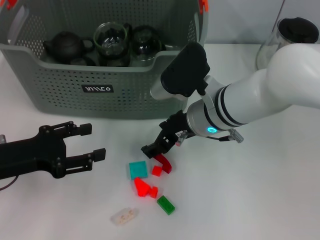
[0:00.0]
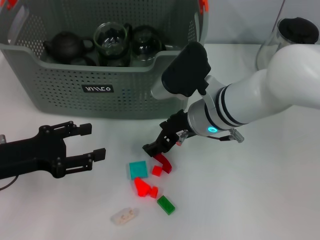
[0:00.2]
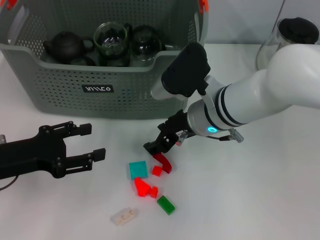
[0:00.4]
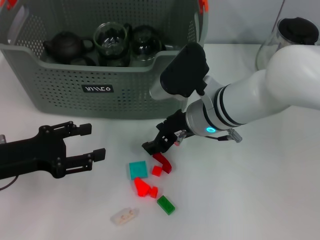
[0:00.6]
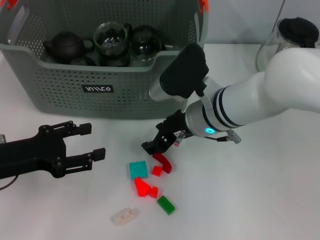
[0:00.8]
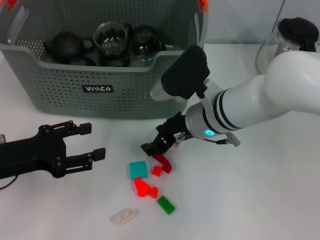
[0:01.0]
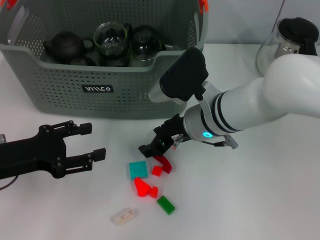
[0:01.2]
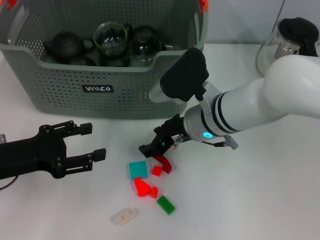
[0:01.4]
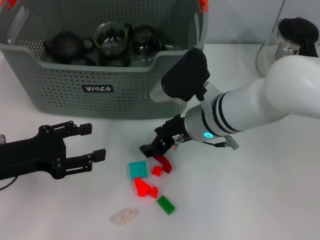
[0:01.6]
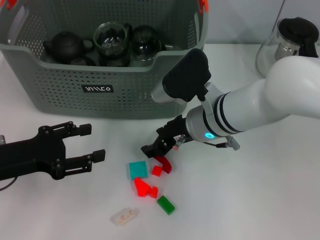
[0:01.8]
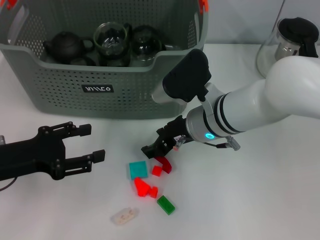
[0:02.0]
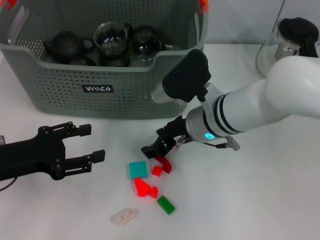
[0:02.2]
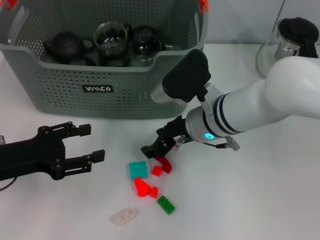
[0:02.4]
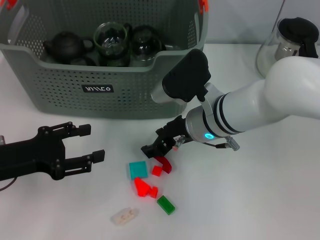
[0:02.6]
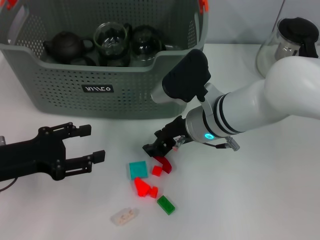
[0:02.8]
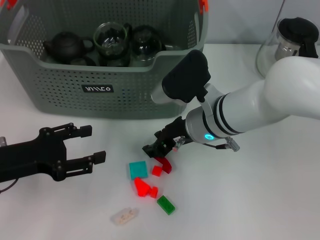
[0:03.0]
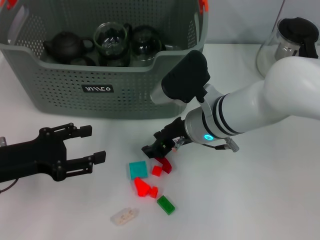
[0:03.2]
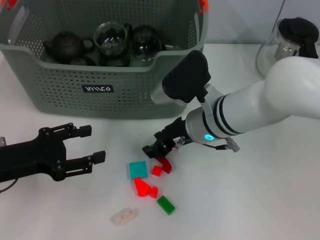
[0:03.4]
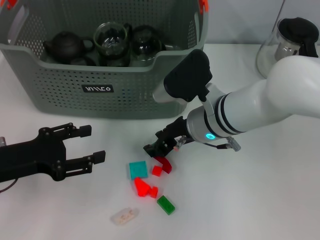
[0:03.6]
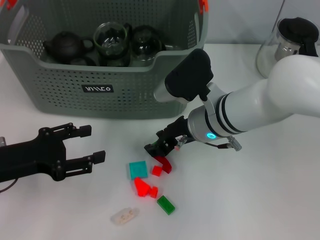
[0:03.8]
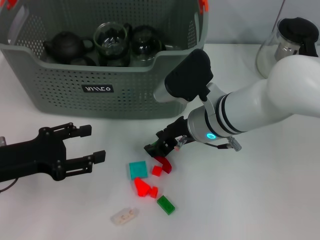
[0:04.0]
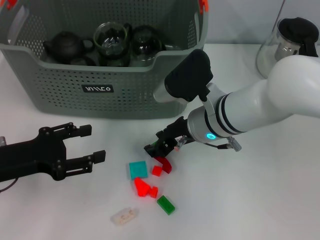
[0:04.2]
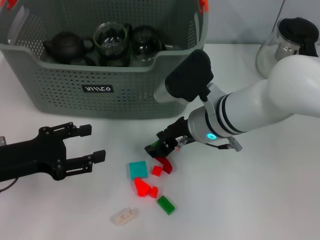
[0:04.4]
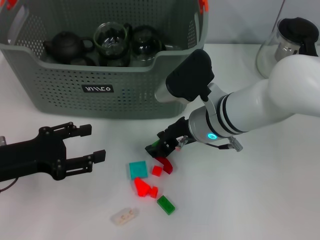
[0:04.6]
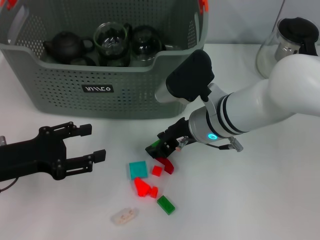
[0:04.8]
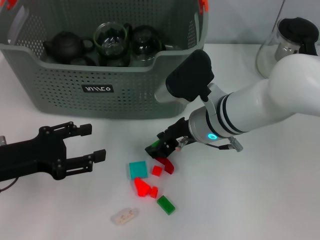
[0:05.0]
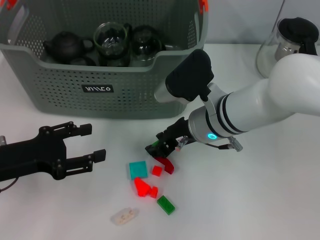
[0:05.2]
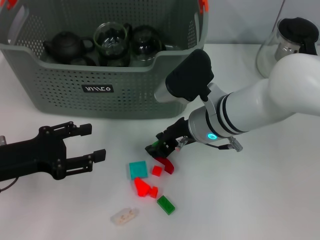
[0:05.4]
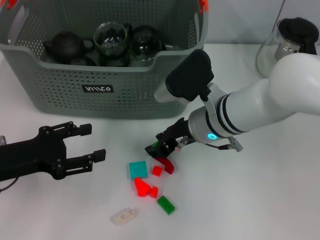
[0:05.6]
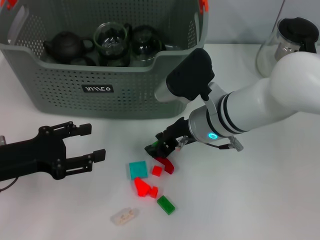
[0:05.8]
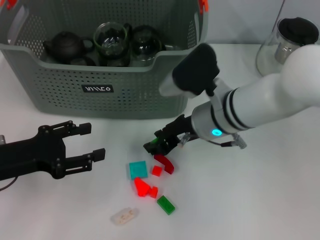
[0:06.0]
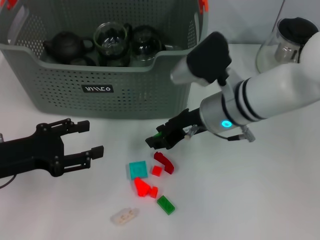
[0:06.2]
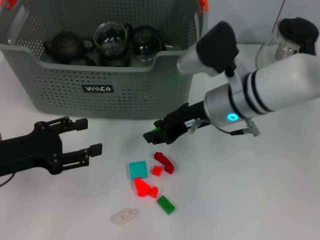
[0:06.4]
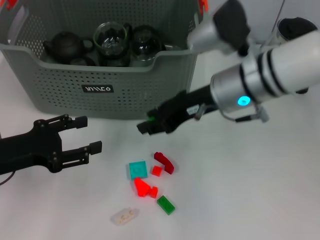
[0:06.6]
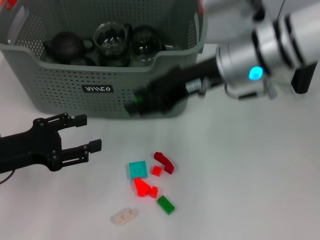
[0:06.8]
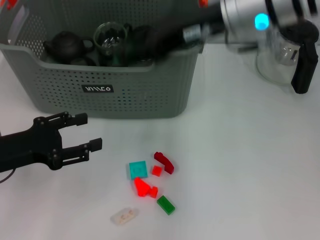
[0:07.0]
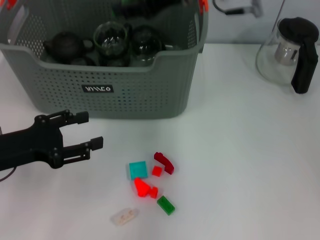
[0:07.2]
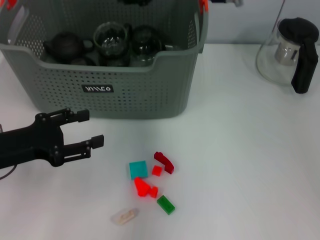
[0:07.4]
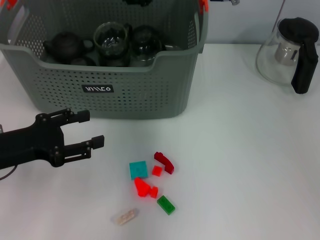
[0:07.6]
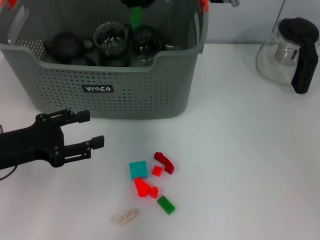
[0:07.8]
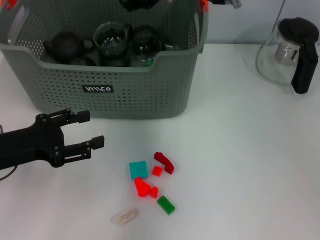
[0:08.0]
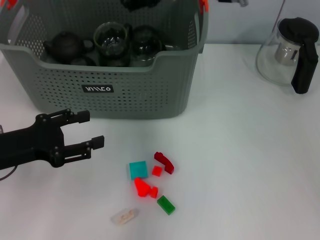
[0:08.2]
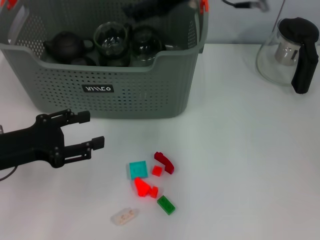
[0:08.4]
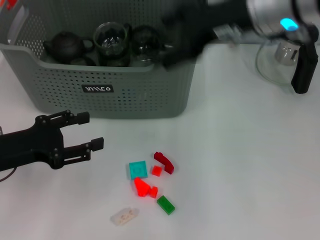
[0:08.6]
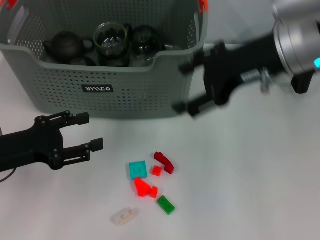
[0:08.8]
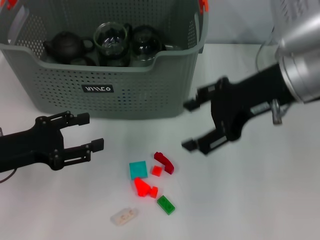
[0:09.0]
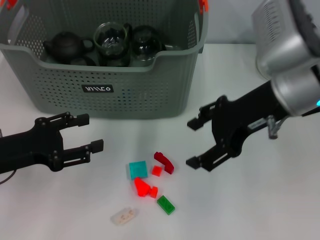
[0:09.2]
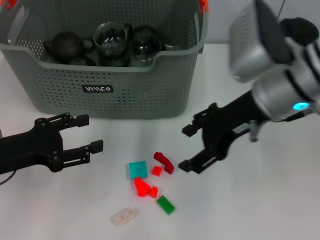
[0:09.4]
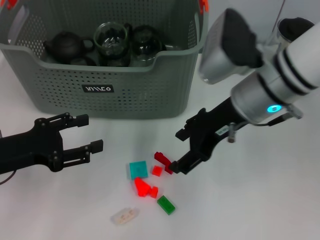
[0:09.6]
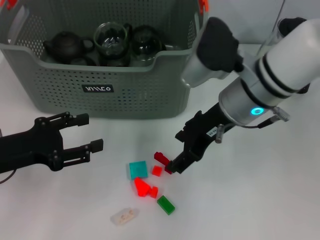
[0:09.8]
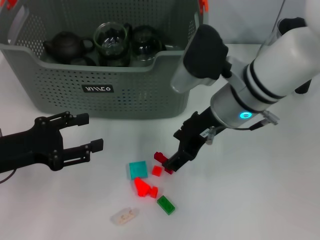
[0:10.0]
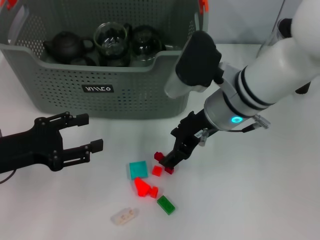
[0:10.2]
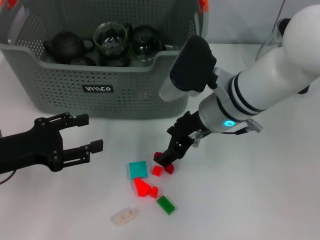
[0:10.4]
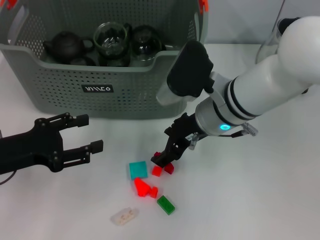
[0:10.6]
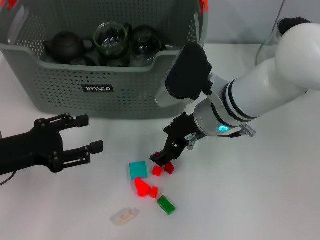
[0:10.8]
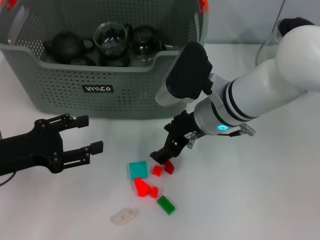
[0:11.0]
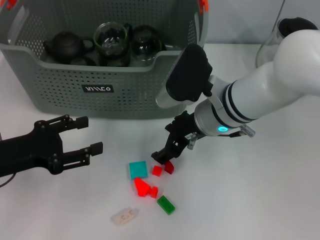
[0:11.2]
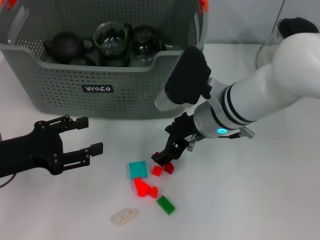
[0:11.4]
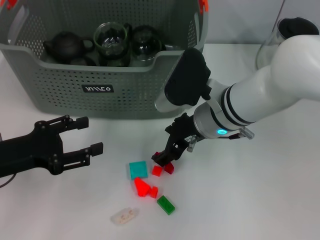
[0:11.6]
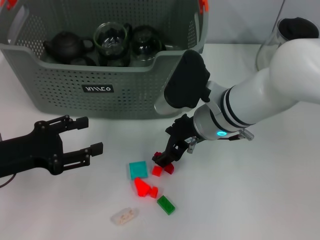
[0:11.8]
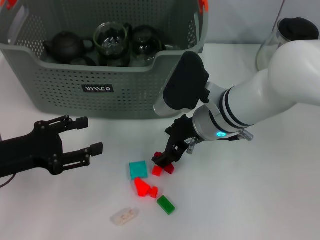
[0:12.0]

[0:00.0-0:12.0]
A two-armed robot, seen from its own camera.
Task of the whole recording: pick up the teacup on the table and place it into the storage bin, pick up the block on the table and place it into the storage bin.
Step, 0:00.0 to 0:05.6: Grasp the green block with right gripper.
Step, 0:05.8 to 0:08.0: Place the green block in the storage box with right gripper.
0:00.0 to 0:03.0: Both grippers stay put.
0:03.0 to 0:04.4: The two grippers keep their place.
0:04.4 to 0:06.0: The two grippers keep their place.
0:06.0 to 0:07.6: The right gripper goes approximately 20 cm upward and forward.
0:07.6 to 0:09.0: The right gripper travels backward and to the right by some 15 cm, and opens up.
0:09.0 to 0:10.4: The right gripper travels downward and to the left by roughly 15 cm.
0:10.4 to 0:12.0: There are only small adjustments of the grippers.

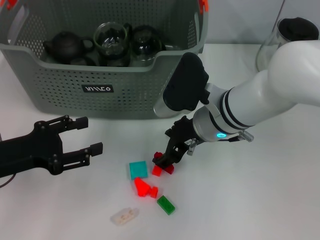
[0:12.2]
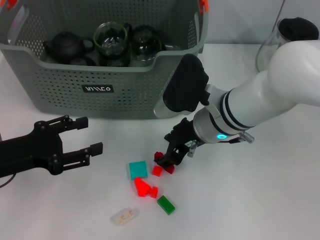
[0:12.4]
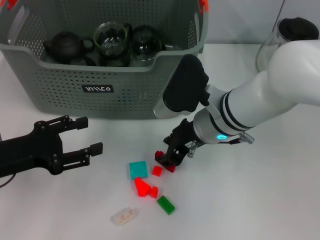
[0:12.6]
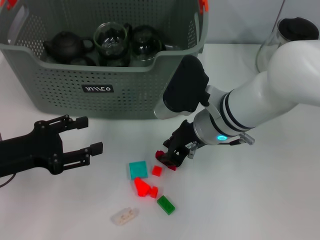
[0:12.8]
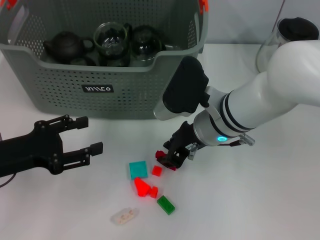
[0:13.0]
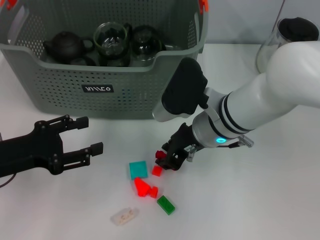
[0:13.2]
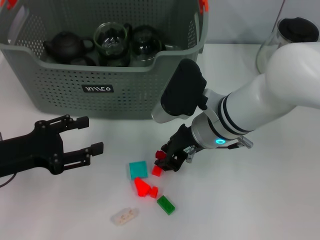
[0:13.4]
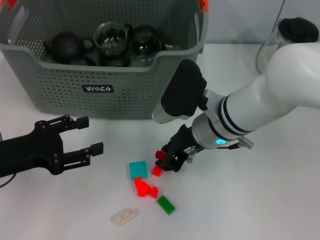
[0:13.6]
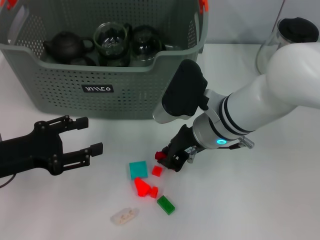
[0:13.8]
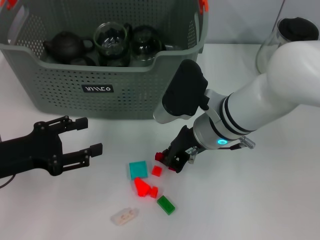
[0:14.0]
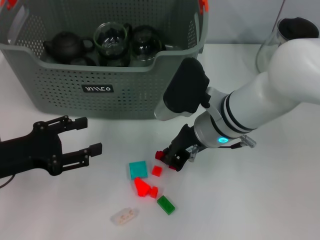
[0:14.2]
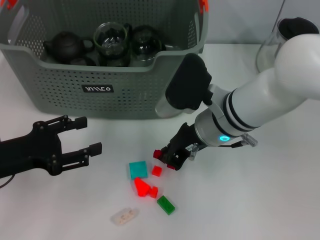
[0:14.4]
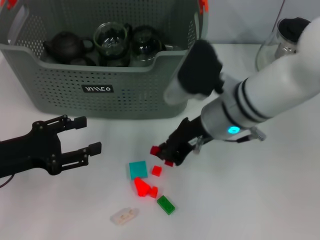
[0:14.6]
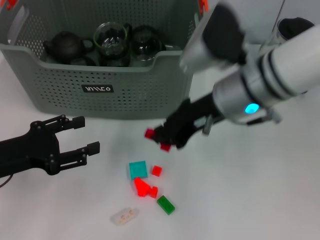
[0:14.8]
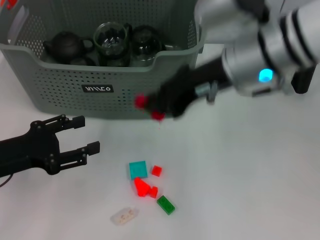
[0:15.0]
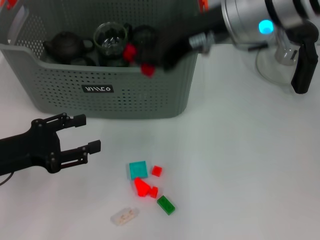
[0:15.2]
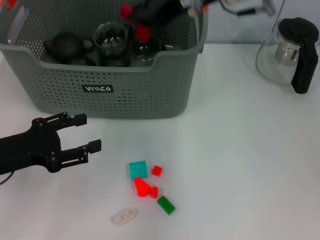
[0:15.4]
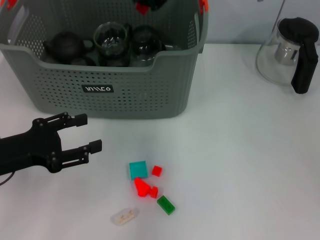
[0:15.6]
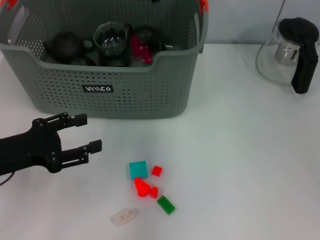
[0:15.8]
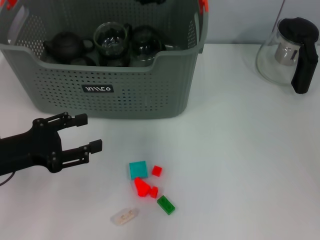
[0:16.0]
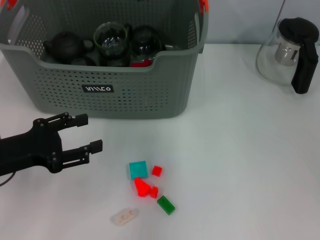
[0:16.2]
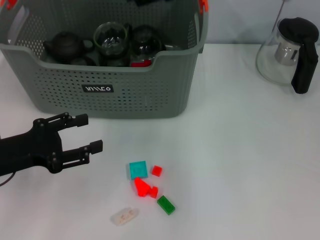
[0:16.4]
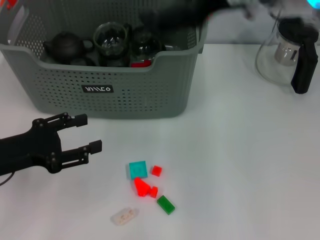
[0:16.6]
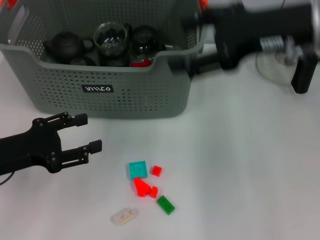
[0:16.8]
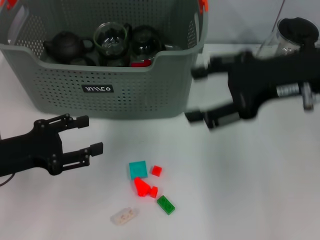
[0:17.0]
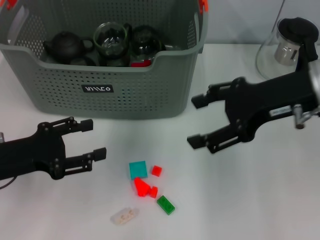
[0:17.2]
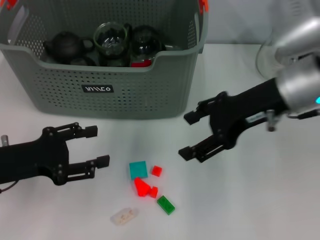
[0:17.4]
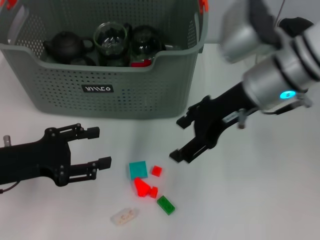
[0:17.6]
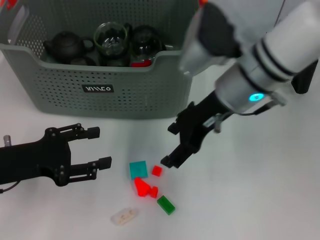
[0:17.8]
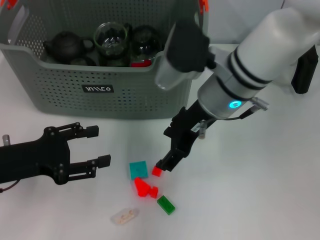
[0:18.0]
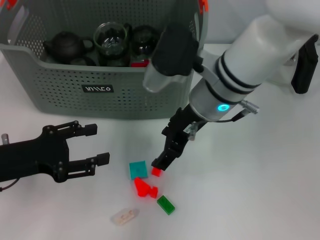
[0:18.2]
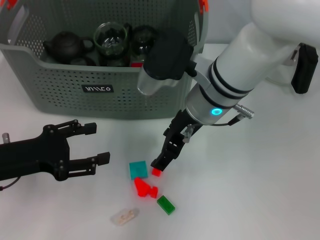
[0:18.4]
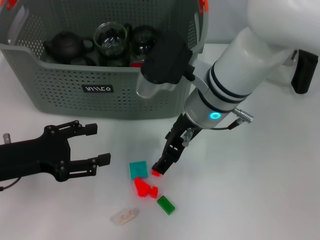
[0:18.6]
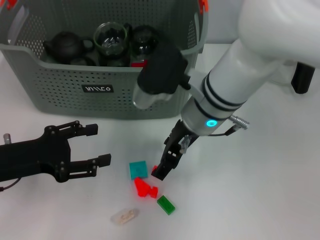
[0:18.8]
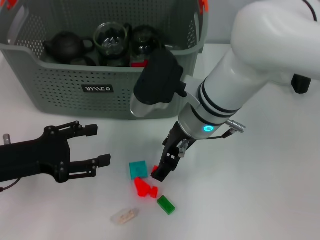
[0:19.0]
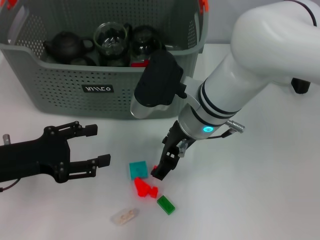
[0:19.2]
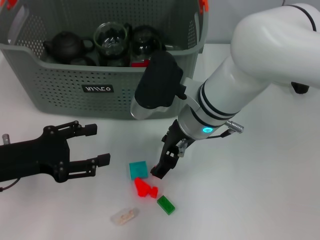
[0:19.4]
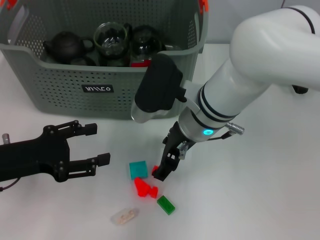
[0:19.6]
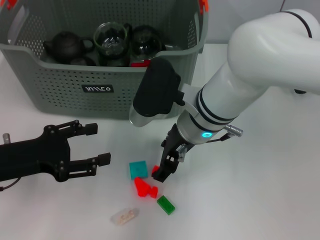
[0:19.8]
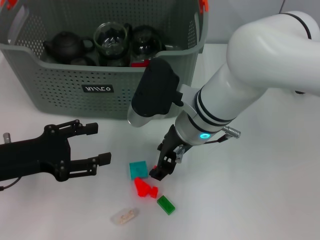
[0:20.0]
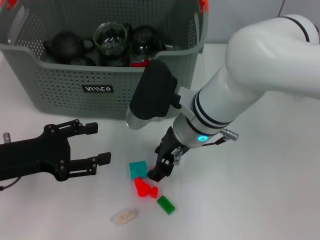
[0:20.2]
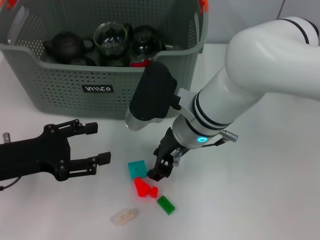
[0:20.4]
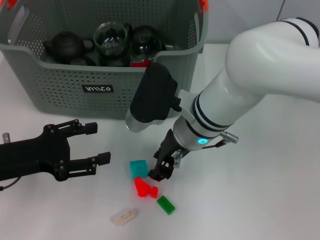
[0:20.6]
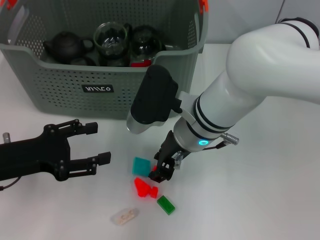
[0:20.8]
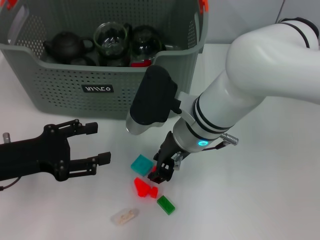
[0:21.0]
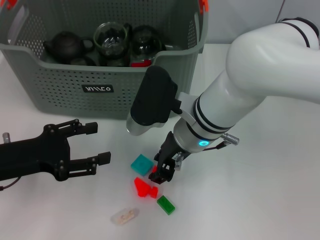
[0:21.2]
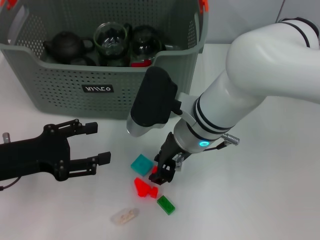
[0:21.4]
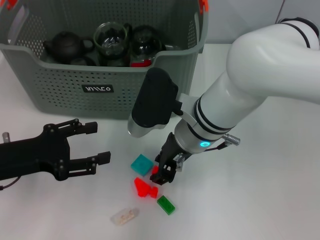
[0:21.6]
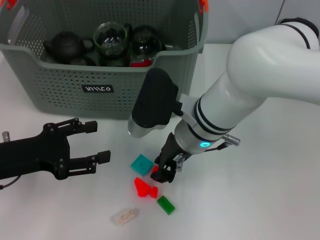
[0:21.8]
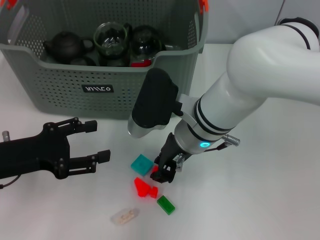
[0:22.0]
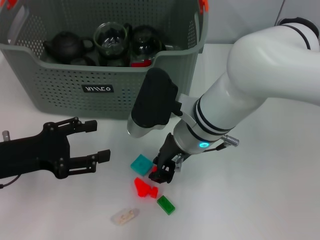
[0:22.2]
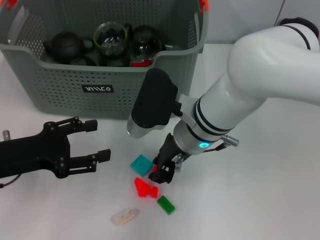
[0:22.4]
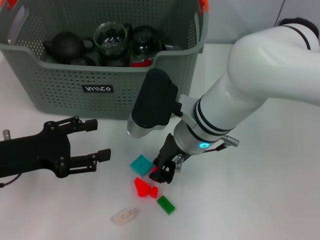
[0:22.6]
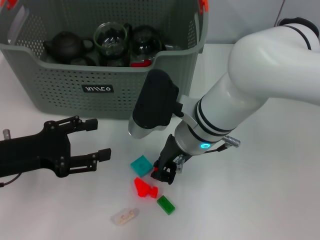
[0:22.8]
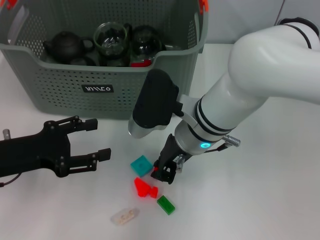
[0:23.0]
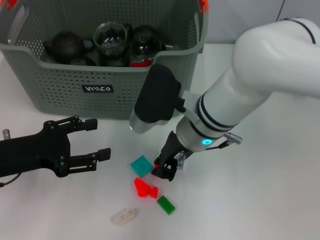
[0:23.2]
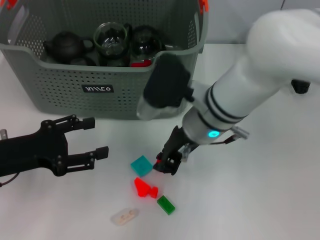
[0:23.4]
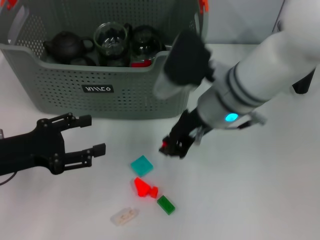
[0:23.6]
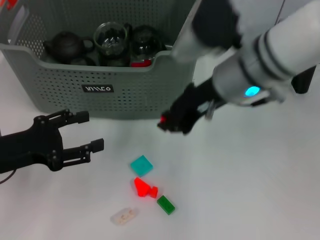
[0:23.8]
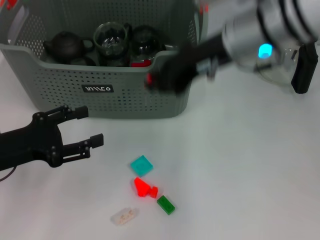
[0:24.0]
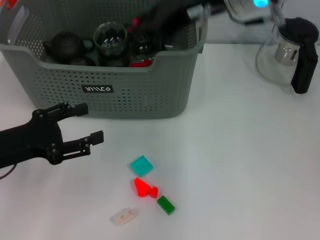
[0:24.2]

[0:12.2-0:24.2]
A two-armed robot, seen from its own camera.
Task of the whole recording: pick up the teacup on the table and place it into the storage bin, pick up the block on the table and place it into the storage bin.
Step, 0:14.2 to 0:15.8: Place the red block in the storage box with right gripper.
Step, 0:16.0 to 0:23.0: Grasp the orange block with right gripper.
0:12.2 to 0:13.8: The right gripper closes.
0:13.8 to 0:15.2: The right gripper travels upward by roughly 15 cm.
0:15.2 to 0:16.6: The right gripper shifts roughly 5 cm to the right, and opens its fingers.
0:16.6 to 0:18.2: The right gripper shifts approximately 15 cm downward and to the left.
0:18.2 to 0:19.8: The grippers stay close to where they were, moving slightly.
0:19.8 to 0:21.2: The right gripper closes its fingers.
0:21.2 to 0:22.6: Neither gripper changes place.
0:22.6 to 0:24.2: The right gripper heads upward, covering approximately 15 cm.
